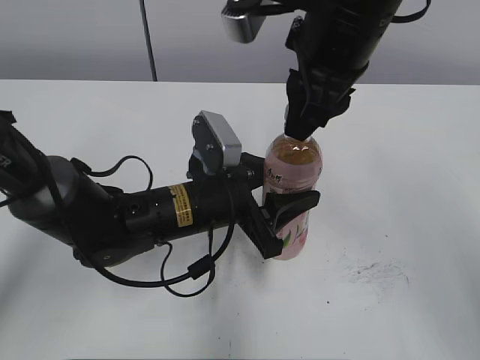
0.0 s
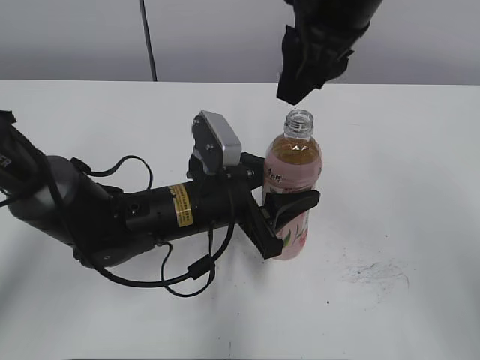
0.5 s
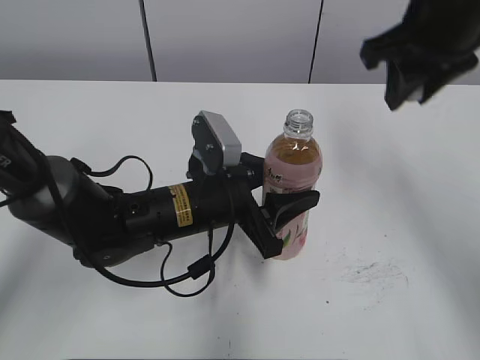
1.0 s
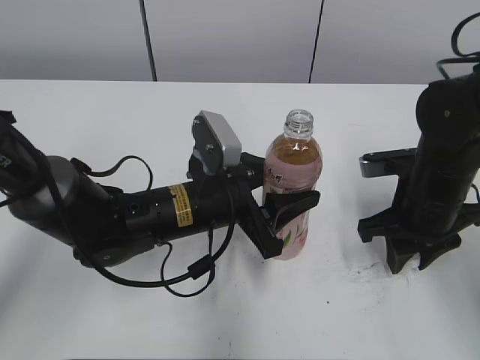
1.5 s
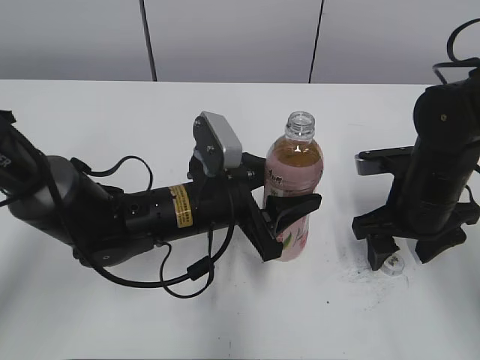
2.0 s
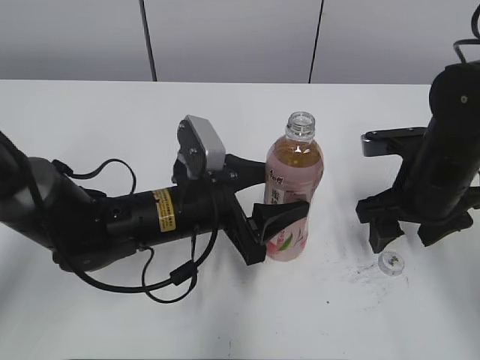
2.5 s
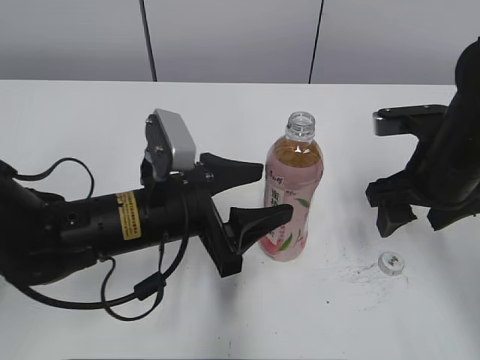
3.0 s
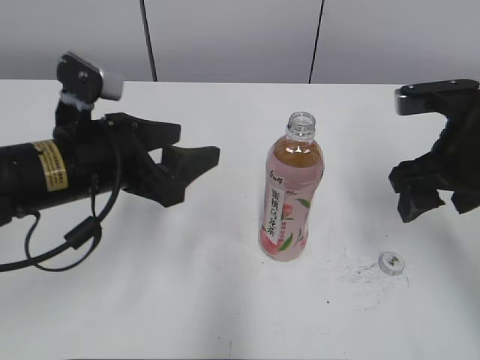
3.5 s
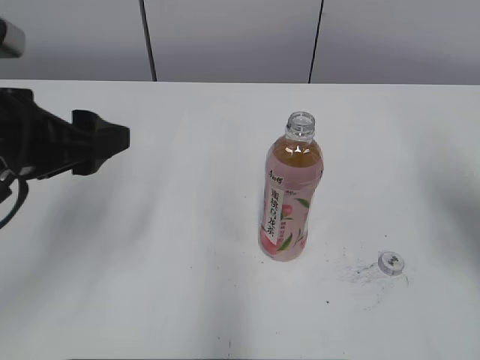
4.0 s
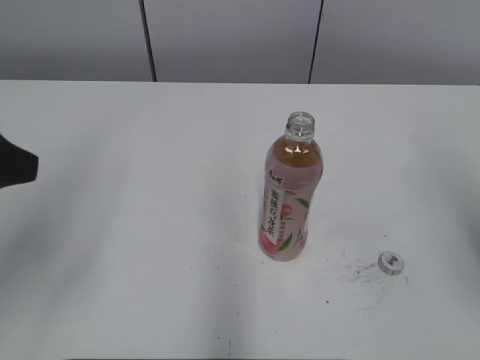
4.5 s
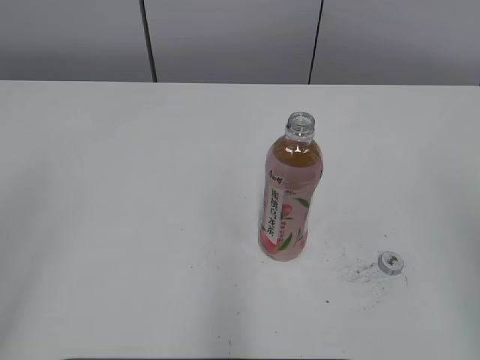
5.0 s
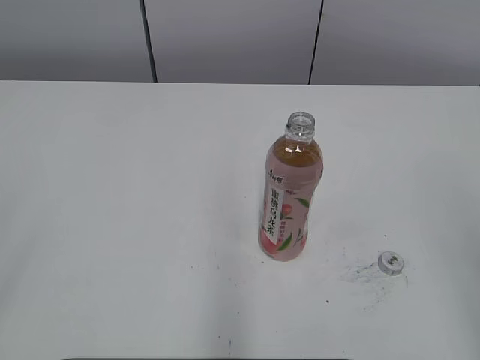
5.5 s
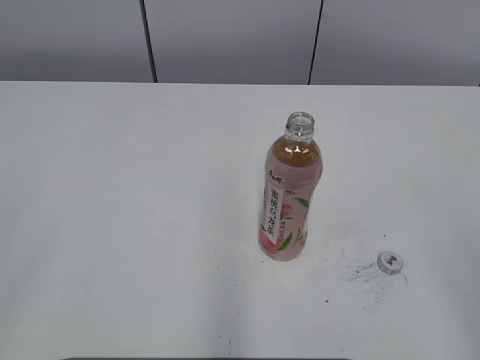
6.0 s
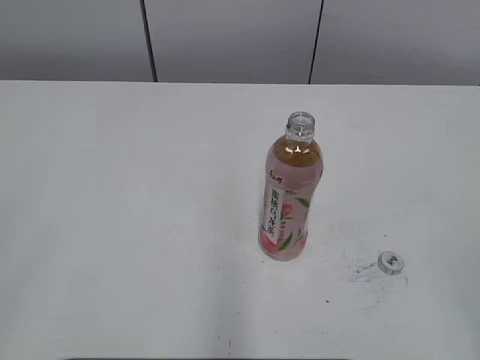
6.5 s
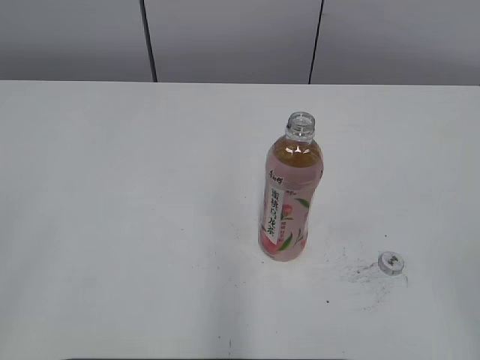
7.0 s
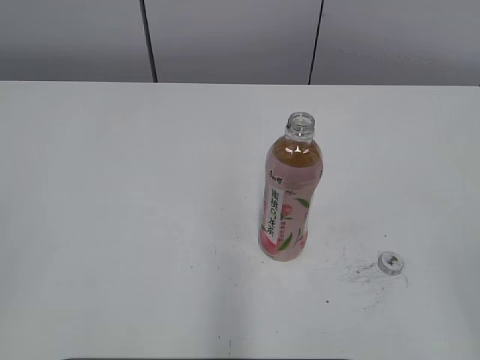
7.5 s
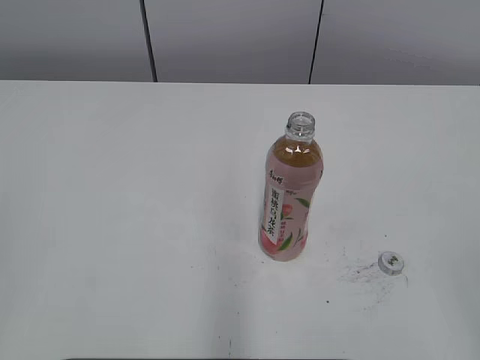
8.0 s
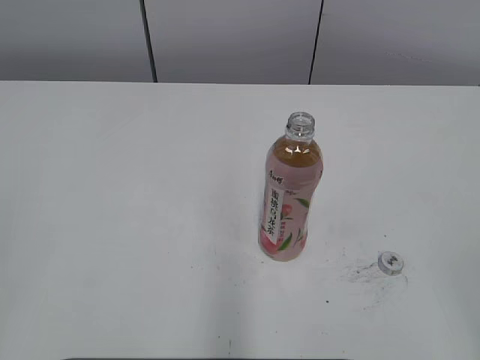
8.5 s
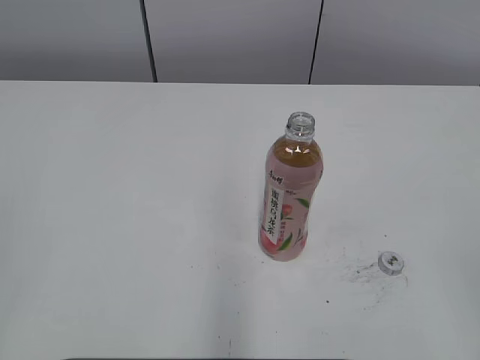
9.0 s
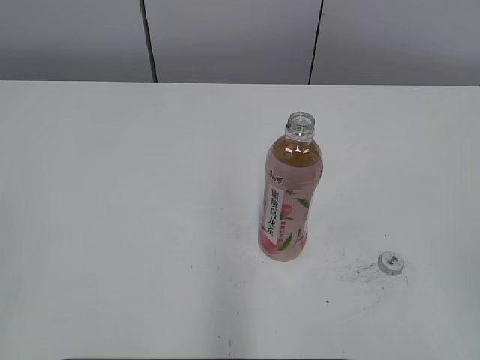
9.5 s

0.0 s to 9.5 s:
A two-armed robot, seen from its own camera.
Step, 0.5 to 1.5 s: Place the bottle cap on the right.
Step, 2.0 to 2.5 s: Place the Peach Oolong Tea with the left hand.
0.0 to 2.0 s: The right gripper heads downward and to the right, covering about 25 cm, and opens.
2.0 to 4.0 s: The right gripper goes about 15 cm upward and to the right; the left gripper travels to the left and upward by about 20 cm.
4.0 to 5.5 s: The right gripper heads backward, covering roughly 20 cm. Meanwhile the left gripper moves backward and to the left, approximately 25 cm.

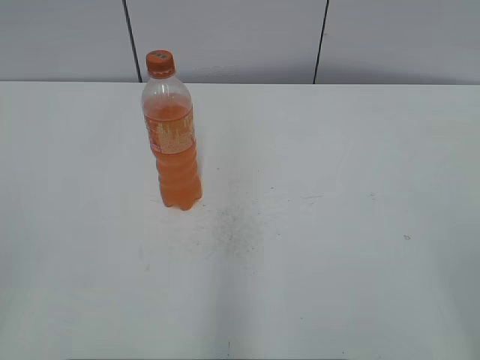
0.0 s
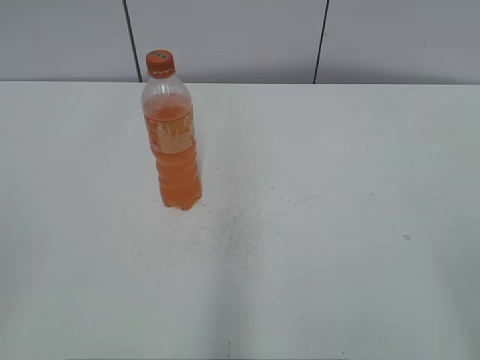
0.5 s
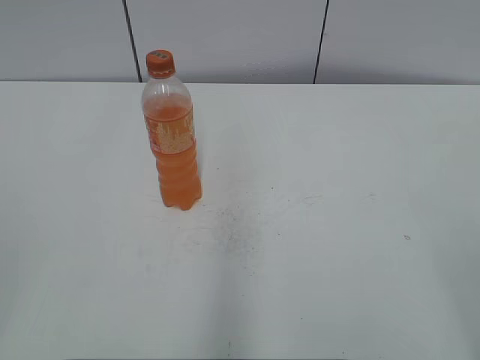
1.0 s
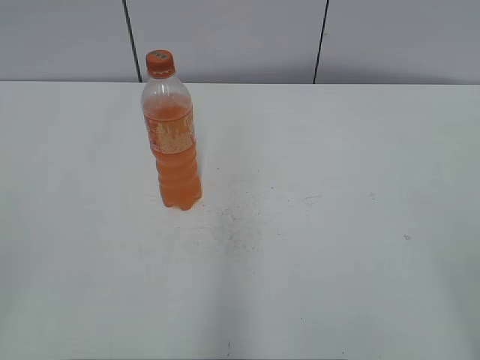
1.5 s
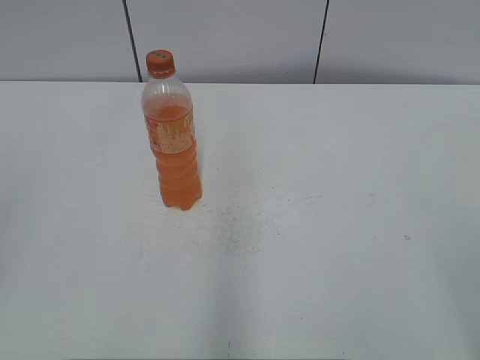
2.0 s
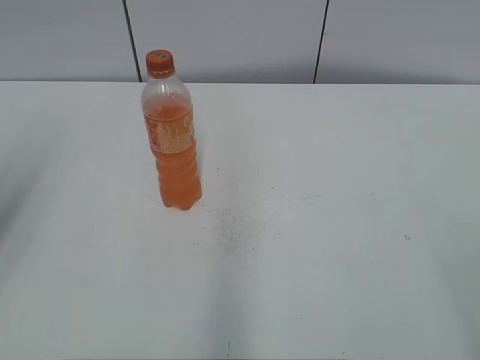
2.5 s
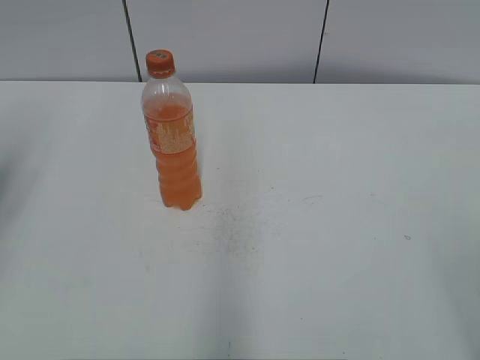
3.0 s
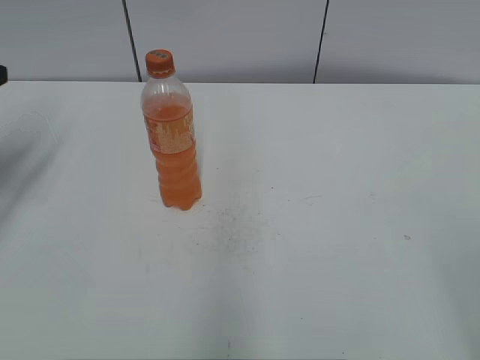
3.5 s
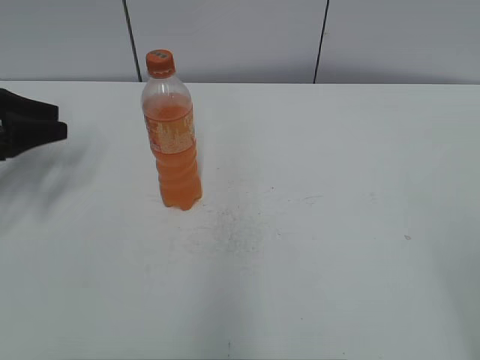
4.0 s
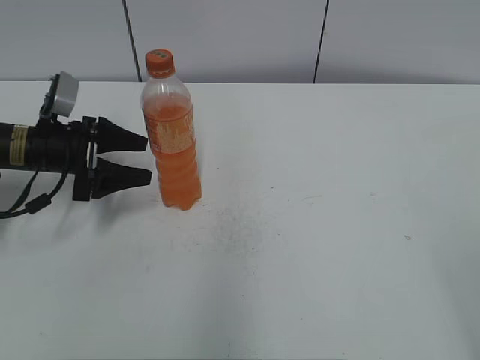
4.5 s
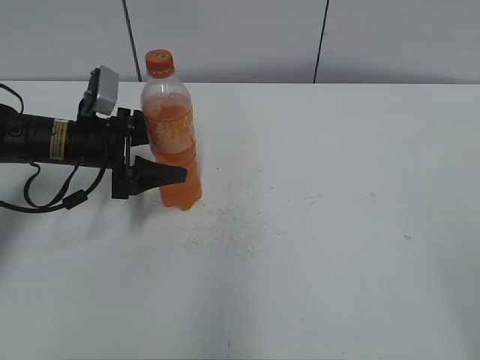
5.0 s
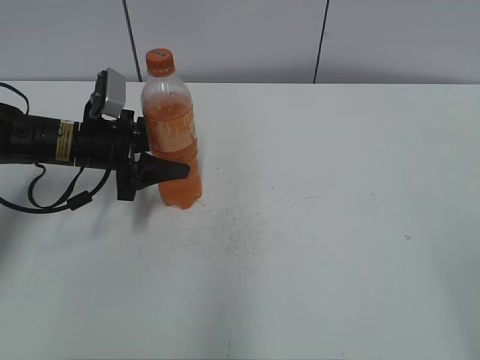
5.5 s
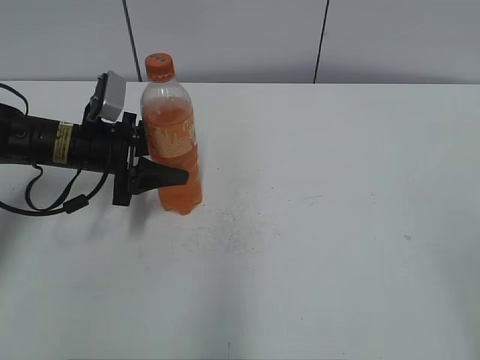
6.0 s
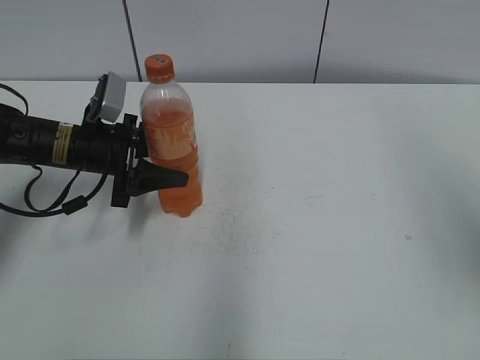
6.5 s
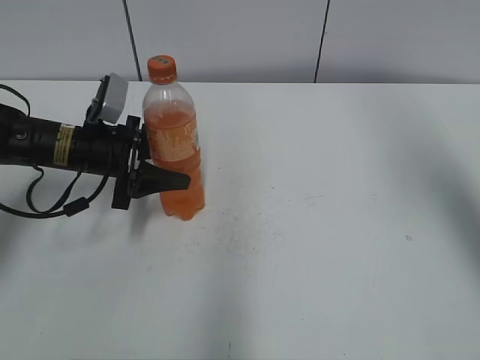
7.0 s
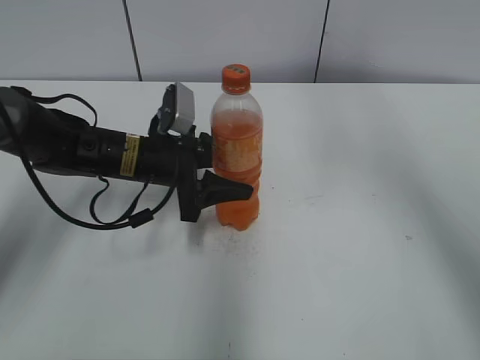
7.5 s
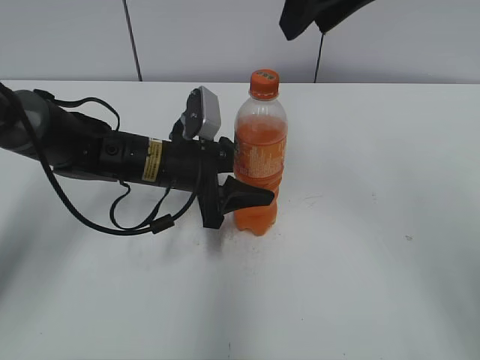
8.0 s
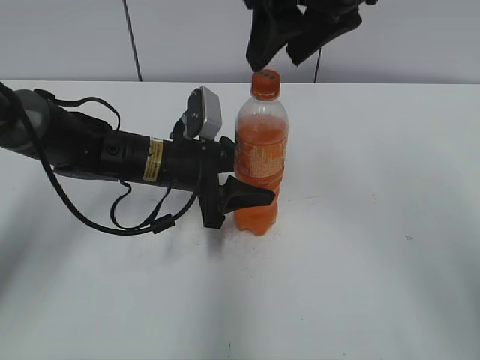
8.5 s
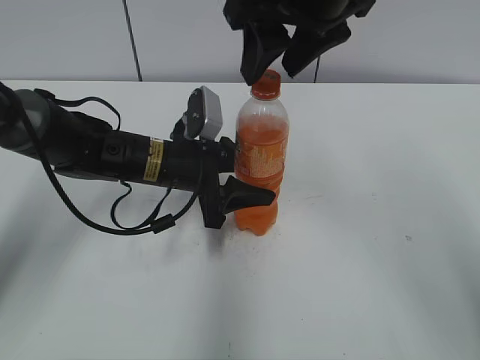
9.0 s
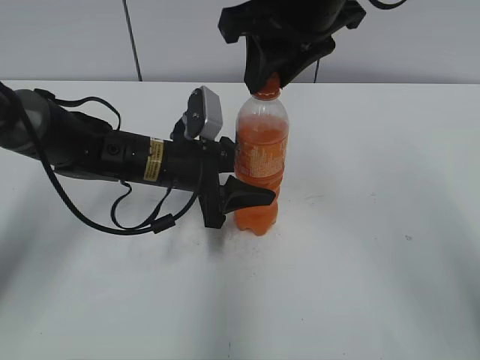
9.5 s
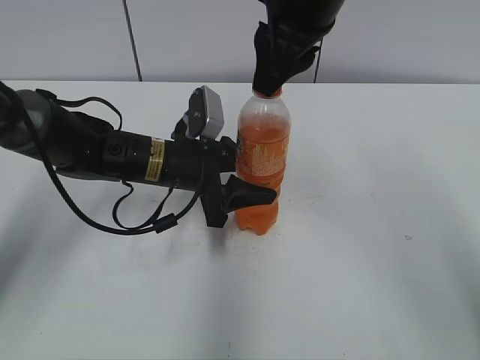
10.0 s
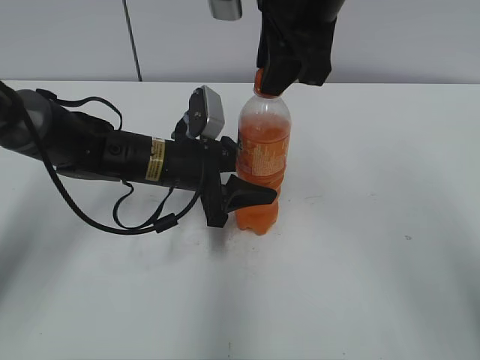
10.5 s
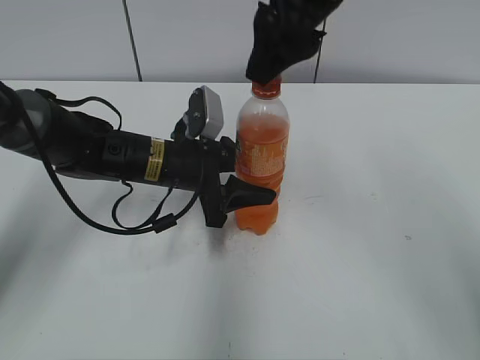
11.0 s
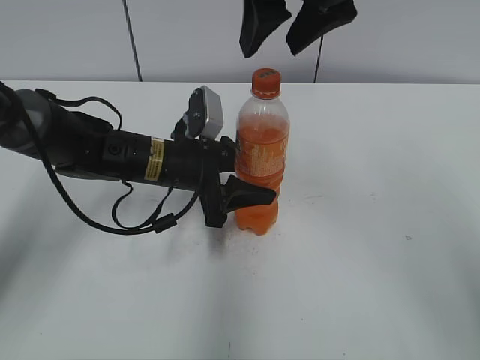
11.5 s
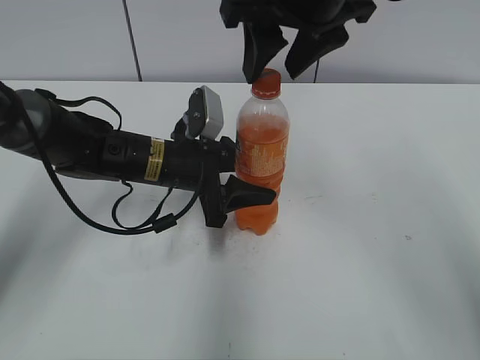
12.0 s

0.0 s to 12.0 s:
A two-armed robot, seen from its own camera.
Step, 0.0 to 5.5 s: Grab the Mirinda with the left hand.
Step, 6.0 to 7.5 s: Move the Mirinda from left to right.
2.0 to 4.0 s: The left gripper travels forward and downward by some 40 cm, and closes, then opens again.
4.0 to 6.0 s: The left gripper travels to the right by some 15 cm, and opens and closes again.
6.0 to 8.0 s: The right gripper moves forward and to the left, approximately 35 cm. Meanwhile the left gripper goes about 10 cm to the right.
8.0 to 10.0 s: The right gripper moves downward, about 5 cm, and closes its fingers.
10.0 to 12.0 s: The right gripper opens up.

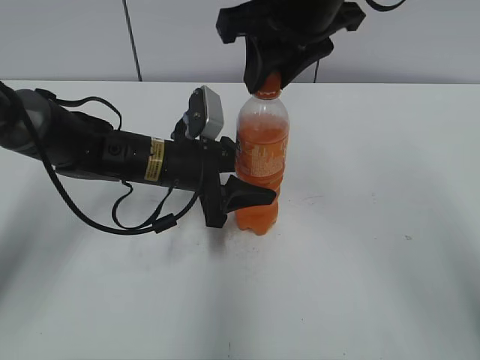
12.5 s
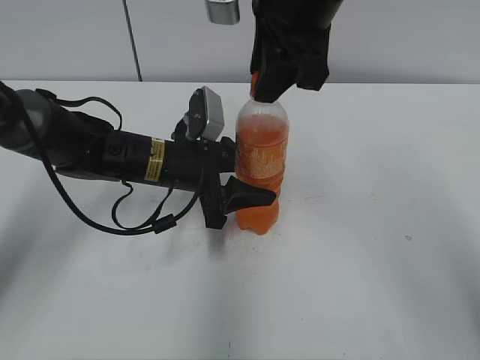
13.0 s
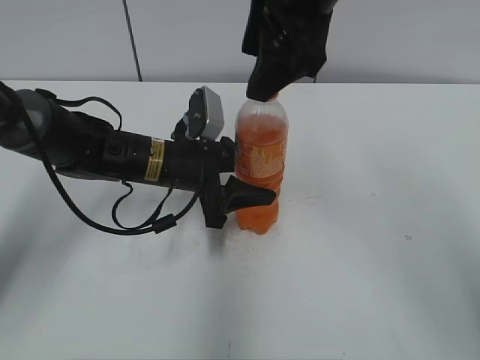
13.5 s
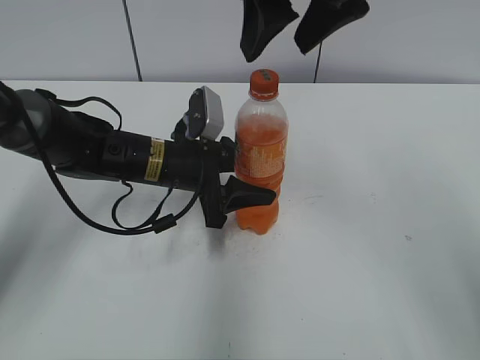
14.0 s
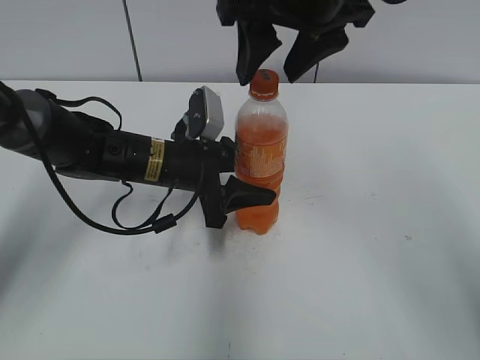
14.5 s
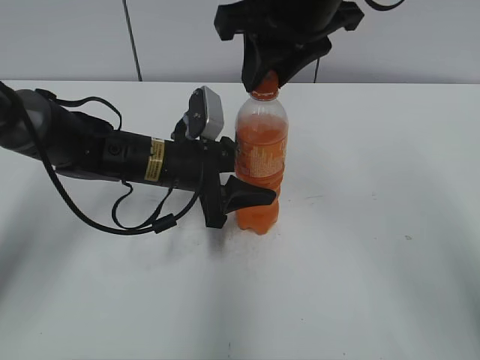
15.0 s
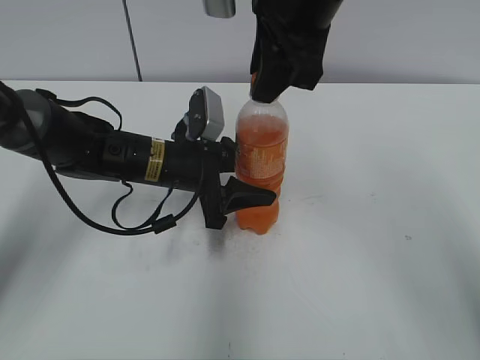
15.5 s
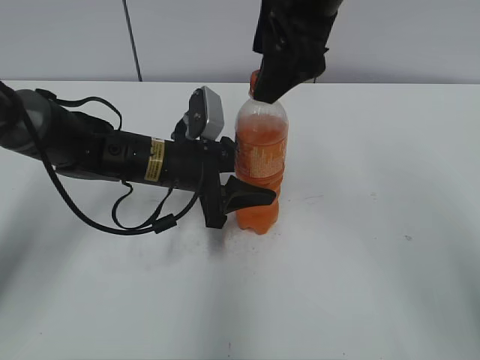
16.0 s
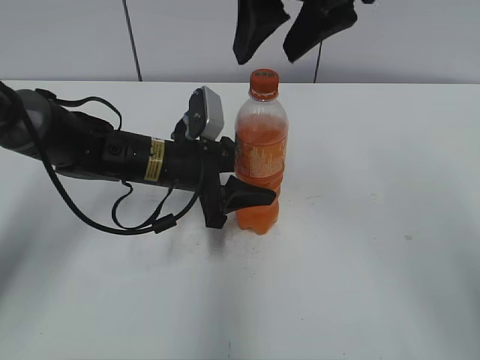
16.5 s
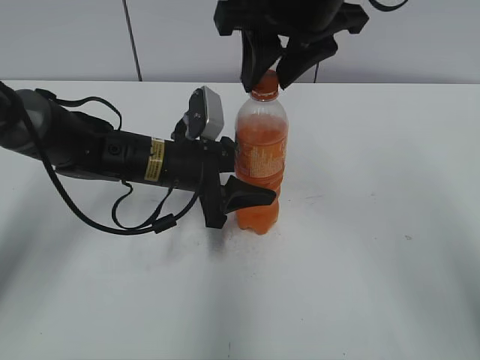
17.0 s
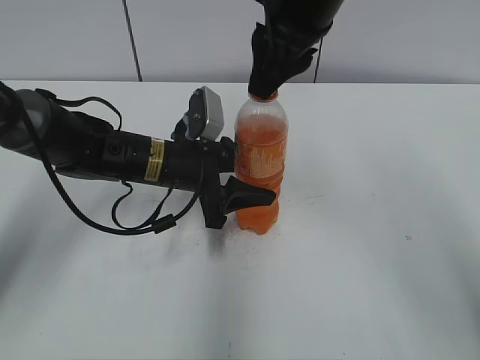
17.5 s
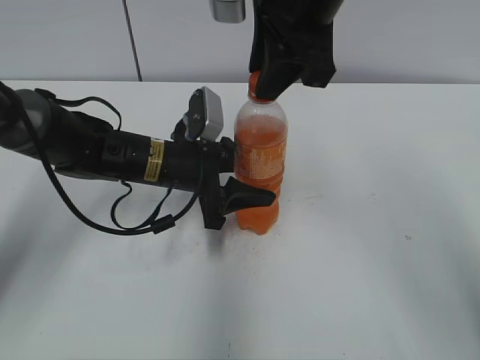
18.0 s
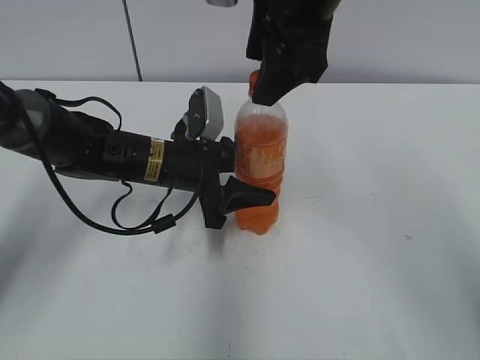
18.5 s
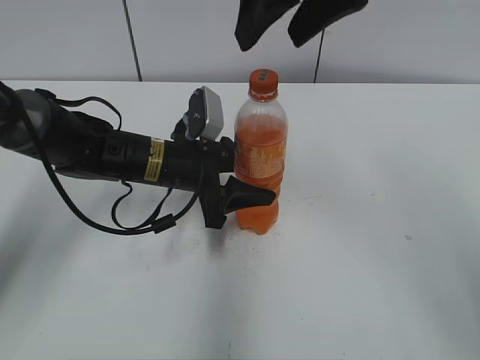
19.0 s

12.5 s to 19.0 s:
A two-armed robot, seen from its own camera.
12.5 to 14.5 s: The right gripper opens.
14.5 to 17.0 s: The right gripper closes.
17.0 to 19.0 s: The right gripper changes place by some 5 cm, and opens up.
